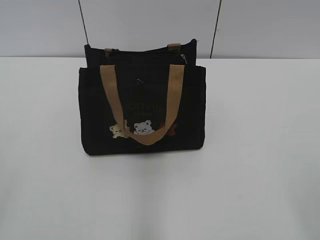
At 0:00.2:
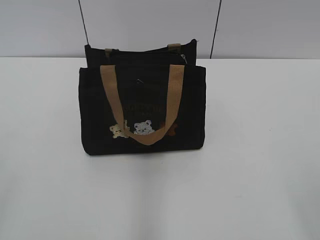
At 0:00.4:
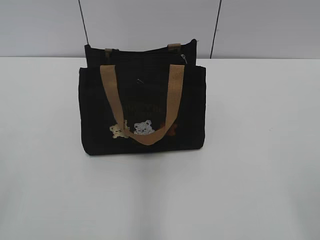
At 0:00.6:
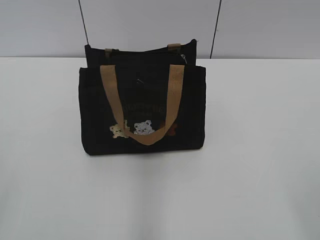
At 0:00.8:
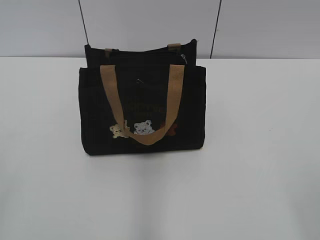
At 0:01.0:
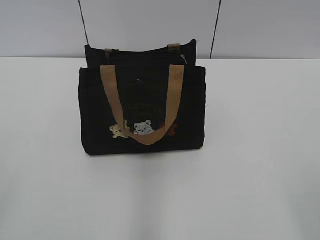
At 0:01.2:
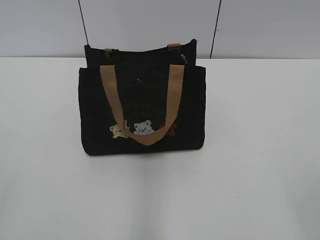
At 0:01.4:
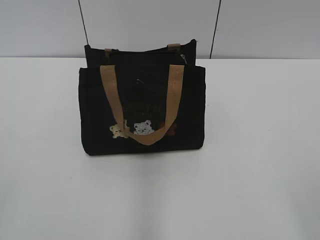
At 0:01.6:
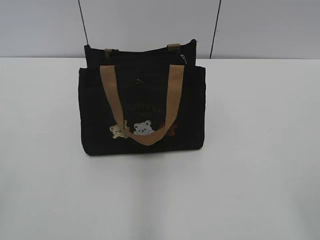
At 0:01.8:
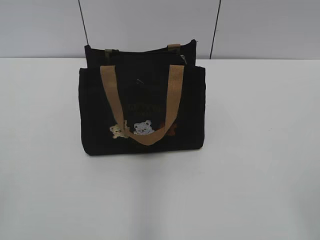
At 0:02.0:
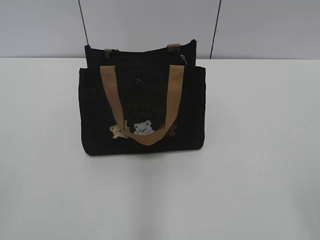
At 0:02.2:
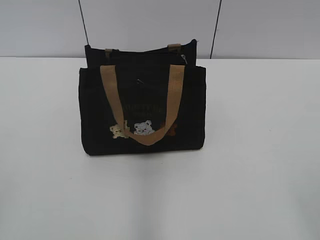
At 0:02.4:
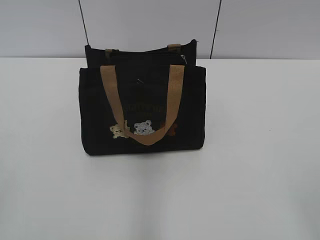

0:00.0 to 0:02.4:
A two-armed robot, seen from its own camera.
0:00.0 to 0:01.2: The two grippers keep their place.
